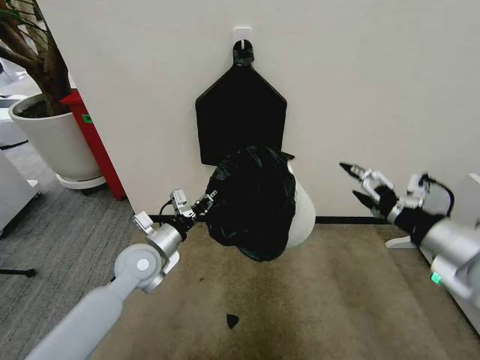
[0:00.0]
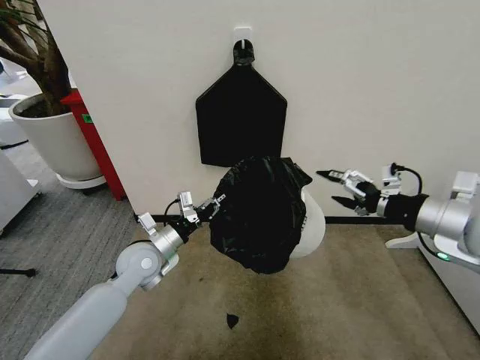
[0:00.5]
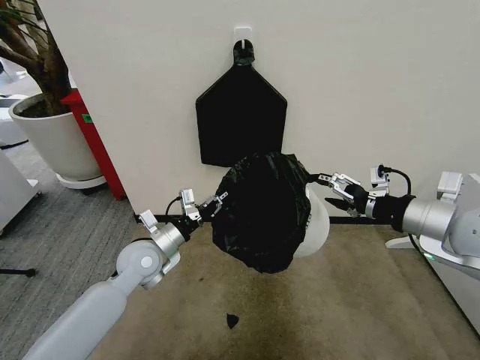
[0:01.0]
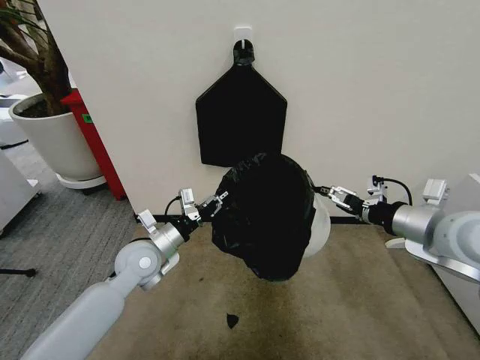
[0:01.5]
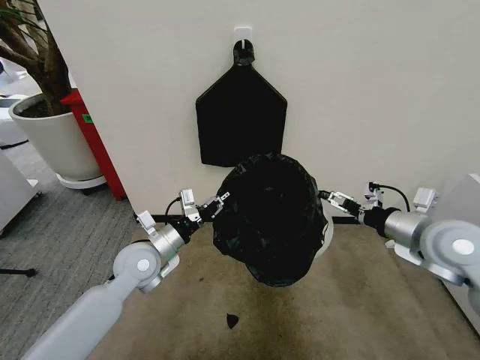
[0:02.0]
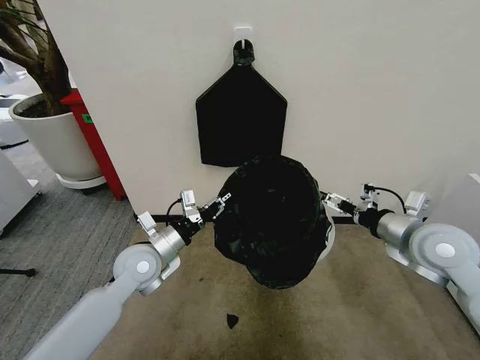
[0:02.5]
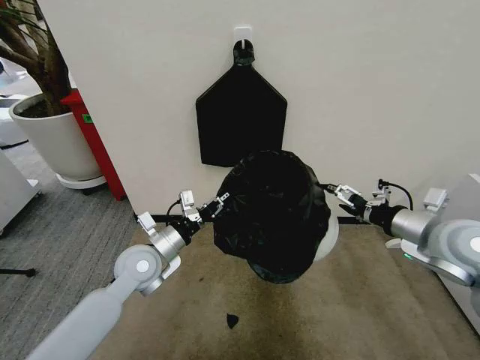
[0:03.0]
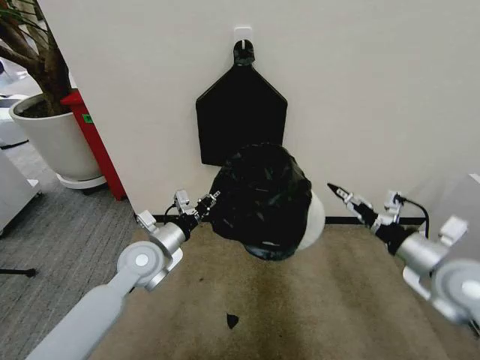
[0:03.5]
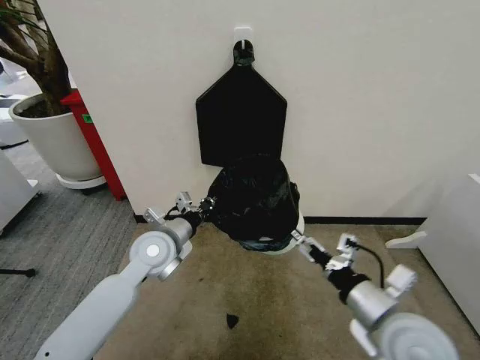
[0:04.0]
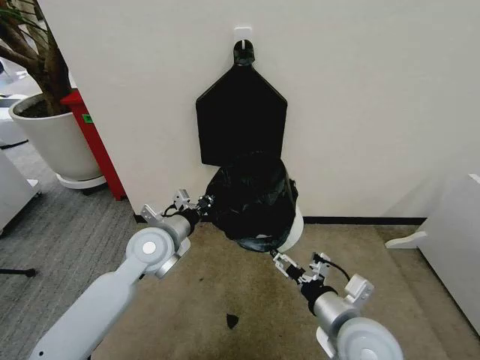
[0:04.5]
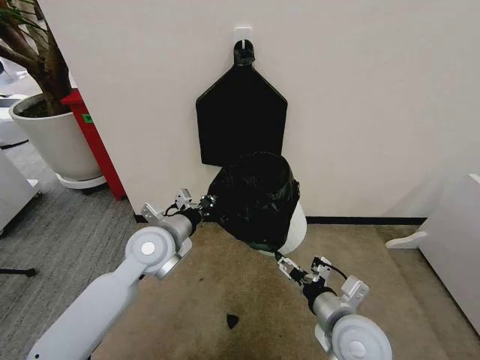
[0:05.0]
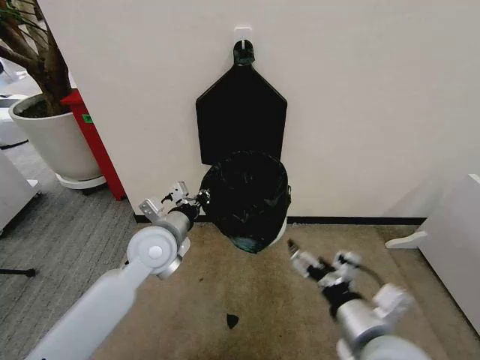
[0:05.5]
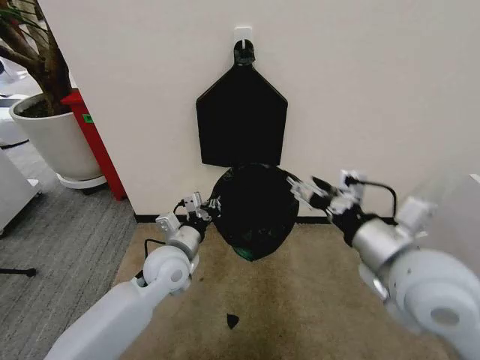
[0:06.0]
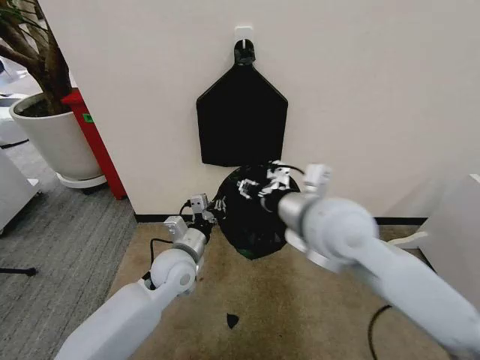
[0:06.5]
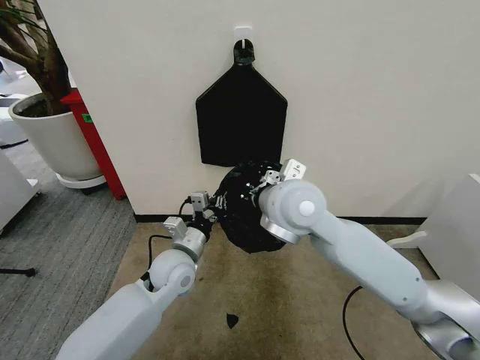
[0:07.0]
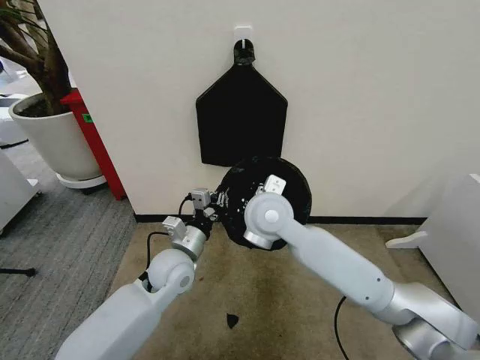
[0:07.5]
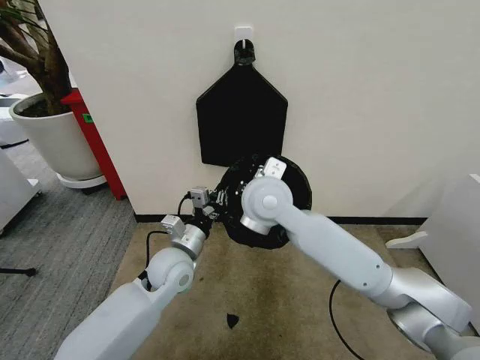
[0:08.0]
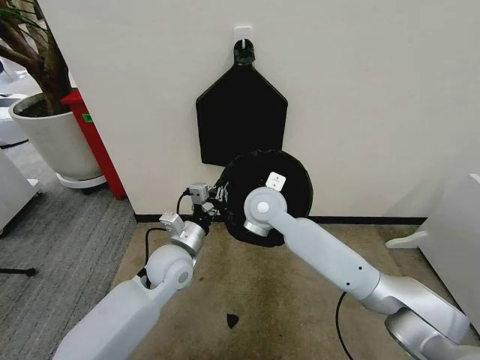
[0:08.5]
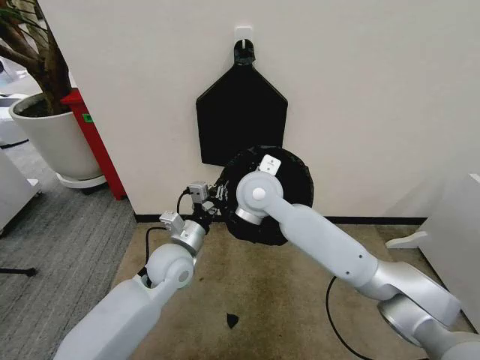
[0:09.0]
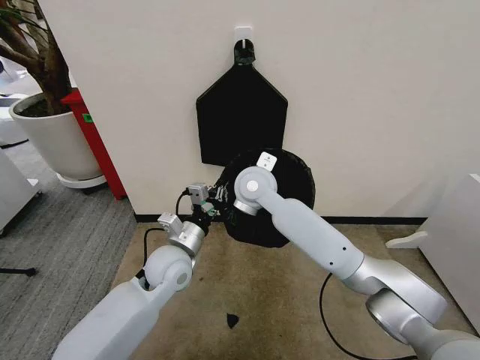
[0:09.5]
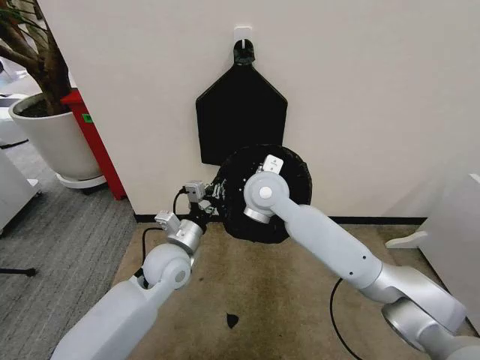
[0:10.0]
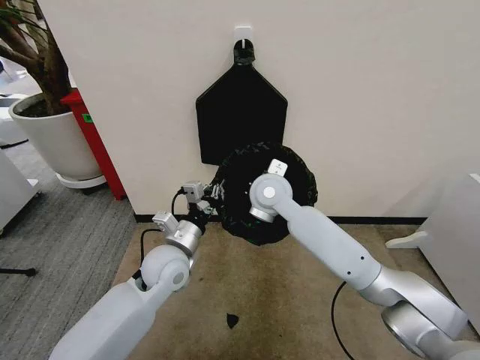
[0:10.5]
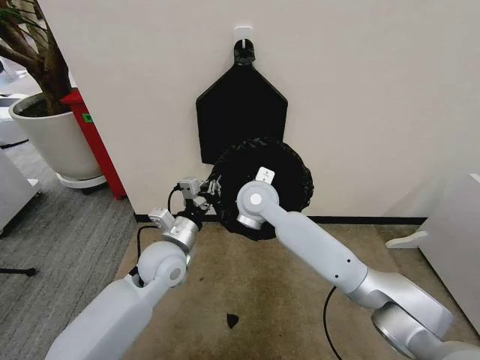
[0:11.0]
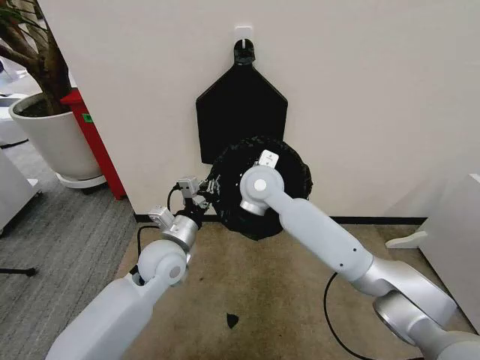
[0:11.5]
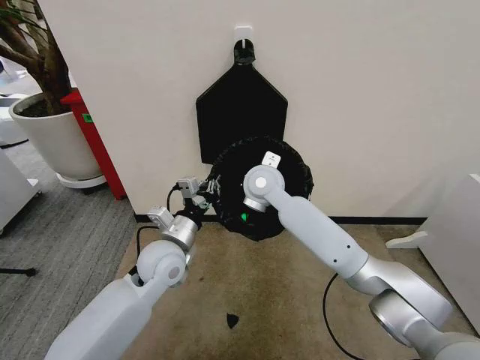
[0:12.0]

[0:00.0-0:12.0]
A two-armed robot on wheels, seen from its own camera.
Task of the whole recording: Place the garbage bag over the trash bin.
0:00.0 to 0:02.0: The right gripper is displaced forward by roughly 10 cm.
0:02.0 to 0:04.0: The right gripper is displaced backward, to the left and downward by roughly 20 cm.
0:04.0 to 0:06.0: The right gripper travels upward by about 10 cm.
0:06.0 to 0:08.0: The right gripper moves to the left and forward, about 25 cm, and closes its fingers.
0:10.0 to 0:12.0: There are only small adjustments of the grippers.

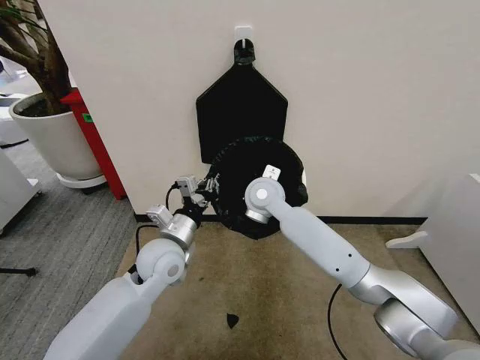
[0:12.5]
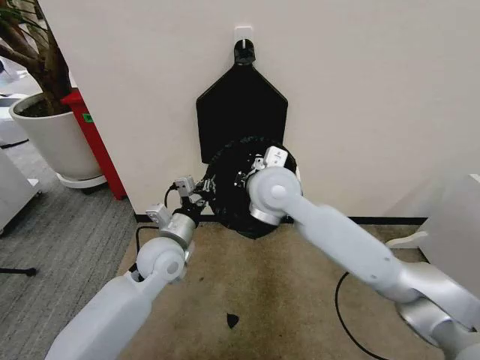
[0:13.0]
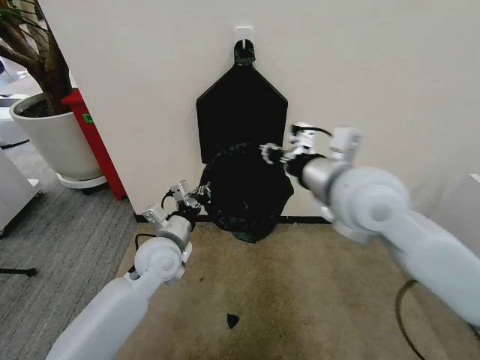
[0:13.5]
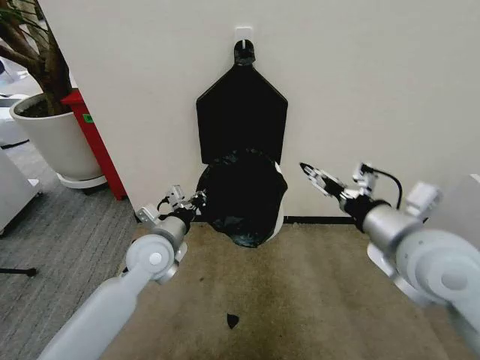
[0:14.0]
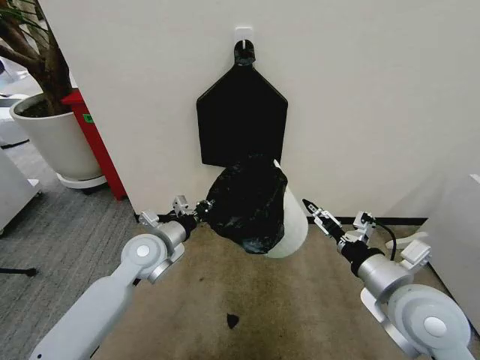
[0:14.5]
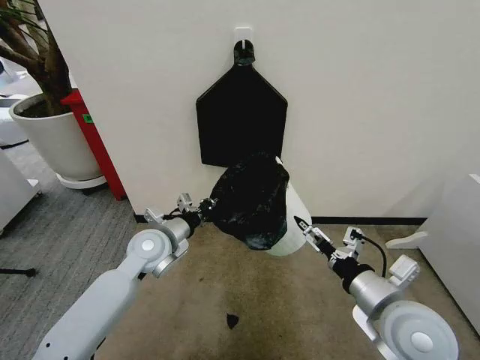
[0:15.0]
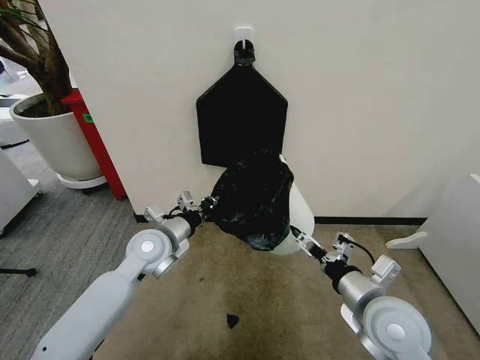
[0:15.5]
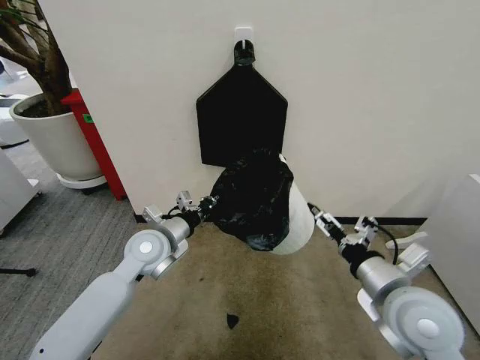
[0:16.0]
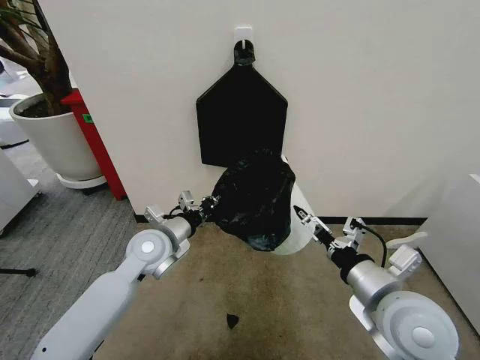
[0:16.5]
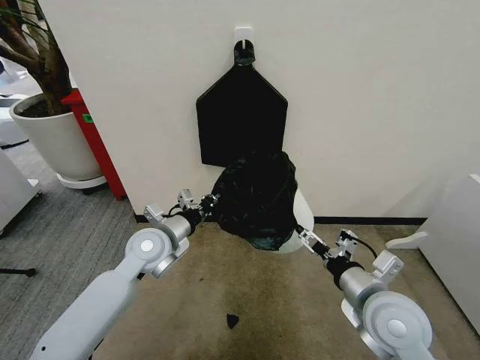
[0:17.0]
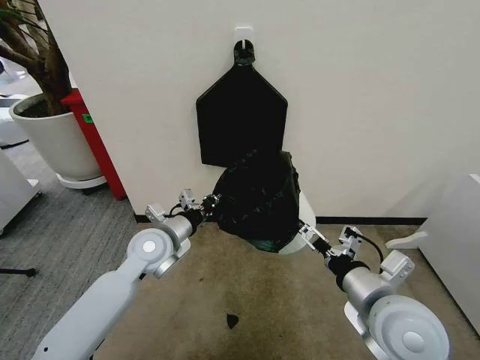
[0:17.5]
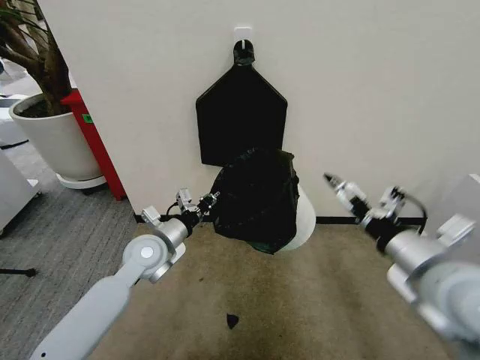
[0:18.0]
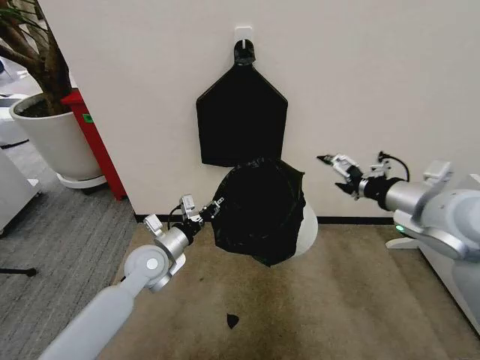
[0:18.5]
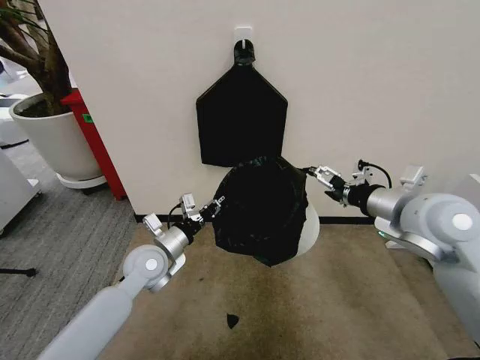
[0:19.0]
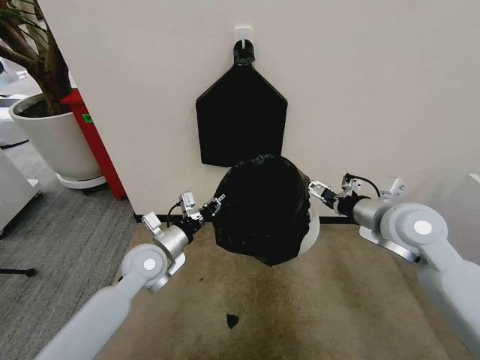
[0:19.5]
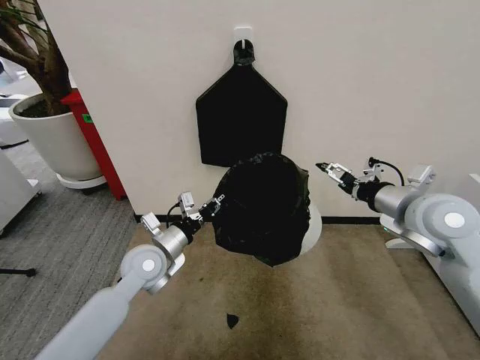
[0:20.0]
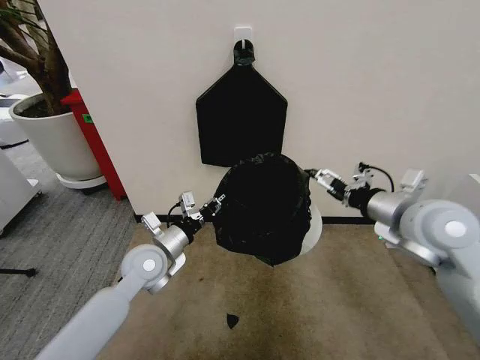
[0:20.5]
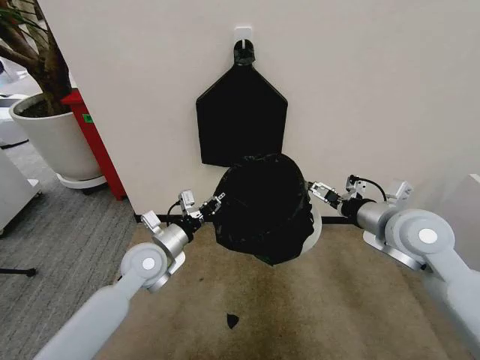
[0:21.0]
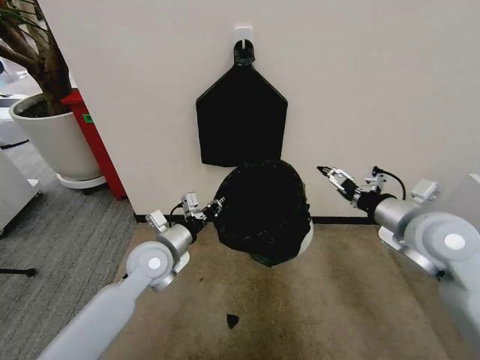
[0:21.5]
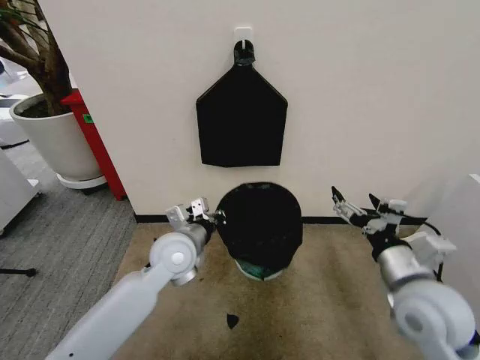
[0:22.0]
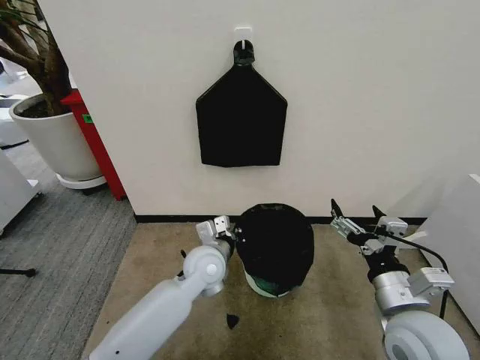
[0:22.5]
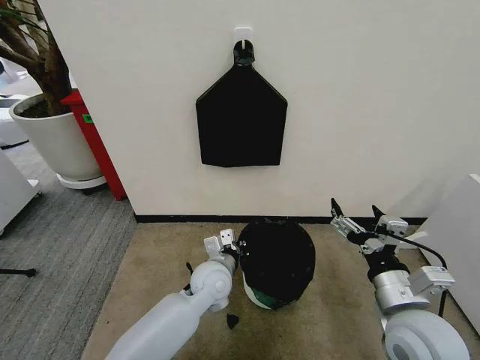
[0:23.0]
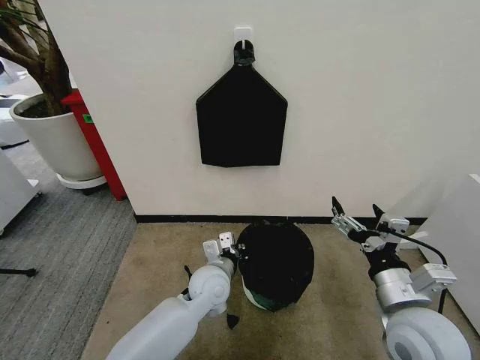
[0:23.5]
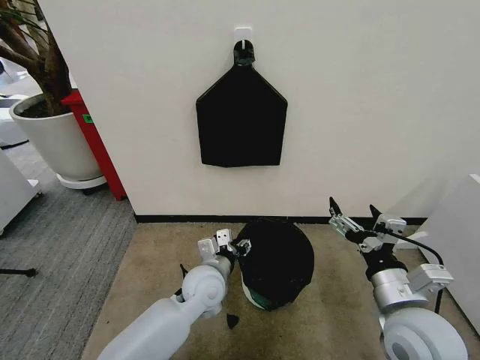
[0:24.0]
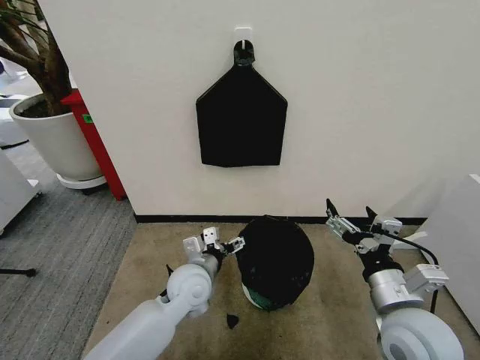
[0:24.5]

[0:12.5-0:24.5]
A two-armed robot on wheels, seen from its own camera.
Task of the whole recording: Place the garbage bag over the trash bin.
0:12.5 to 0:14.5: The right gripper heads backward and to the right, covering some 35 cm, and opens its fingers.
0:16.5 to 0:18.5: The right gripper moves forward, upward and to the right, approximately 20 cm; the left gripper heads downward, covering some 5 cm.
0:20.5 to 0:22.5: The left gripper goes approximately 15 cm to the right, while the right gripper is displaced backward and downward by about 20 cm.
0:22.5 to 0:24.5: The left gripper ends up about 5 cm from where it was, and opens its fingers.

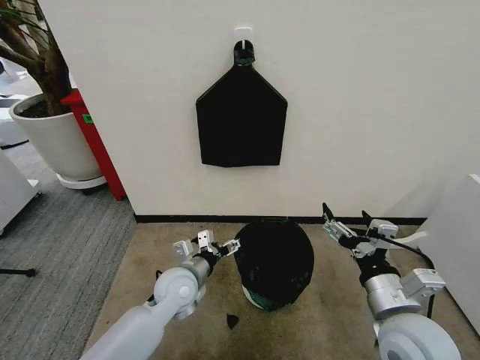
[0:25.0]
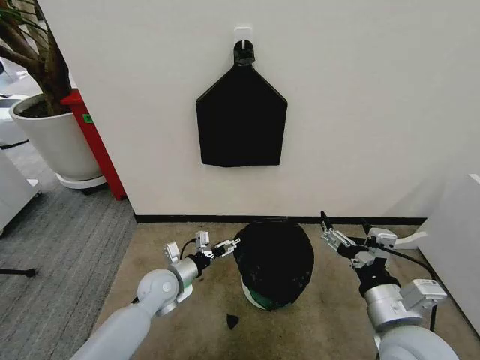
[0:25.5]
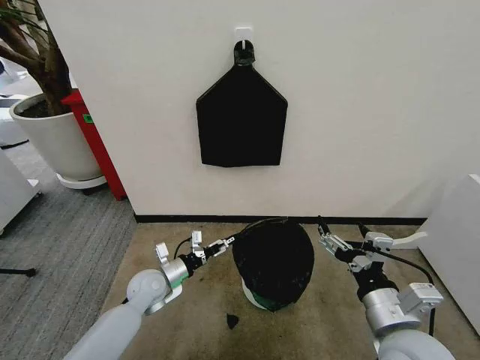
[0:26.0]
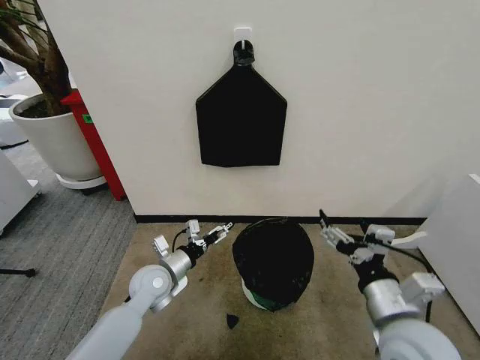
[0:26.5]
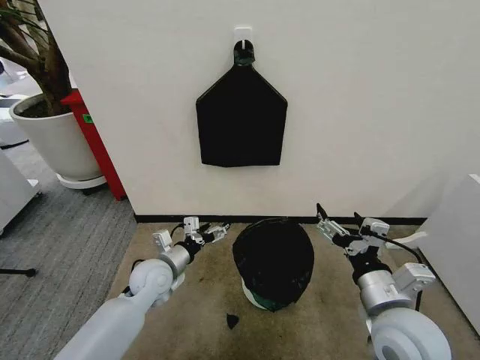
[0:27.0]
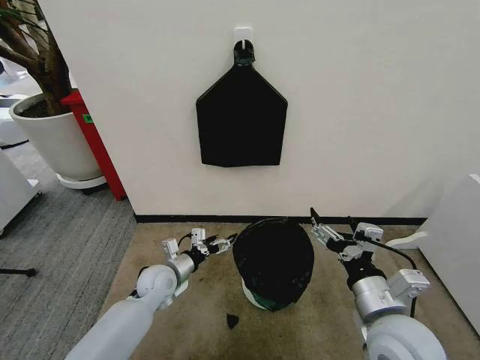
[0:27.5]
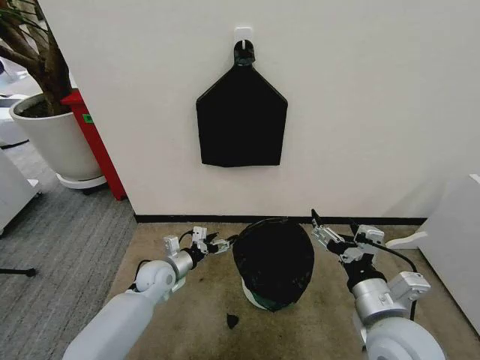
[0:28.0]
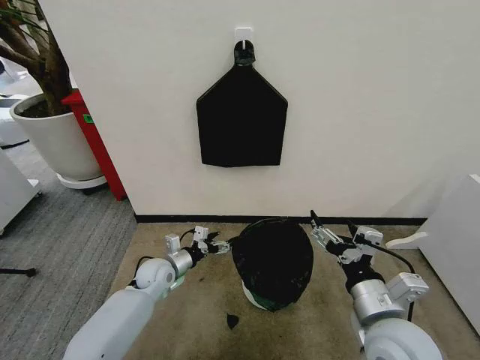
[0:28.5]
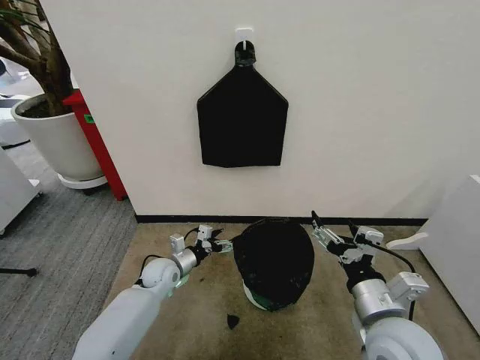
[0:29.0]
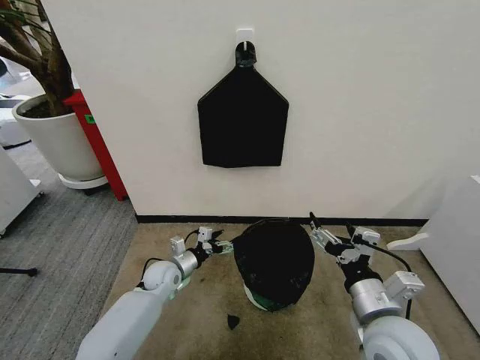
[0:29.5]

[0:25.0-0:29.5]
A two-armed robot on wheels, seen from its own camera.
Task of the whole recording: Place the garbage bag over the trash bin.
0:25.0 to 0:27.0: The left gripper goes about 5 cm to the left.
0:27.0 to 0:29.5: The left gripper moves downward, some 10 cm.
